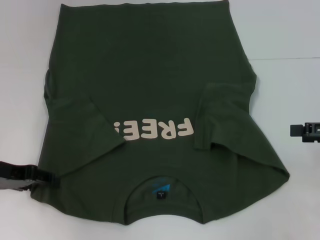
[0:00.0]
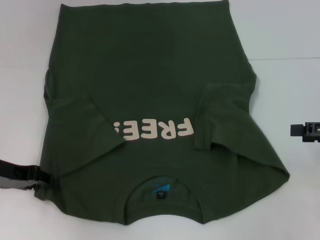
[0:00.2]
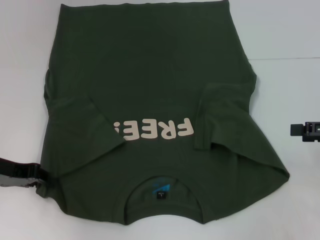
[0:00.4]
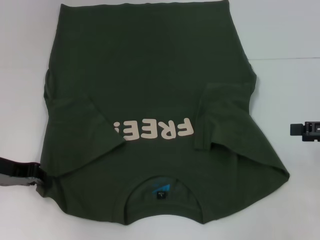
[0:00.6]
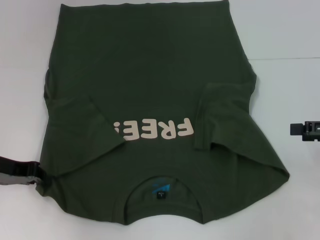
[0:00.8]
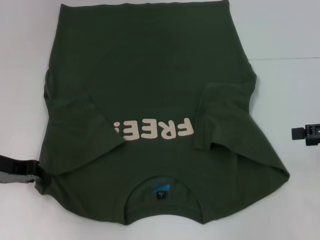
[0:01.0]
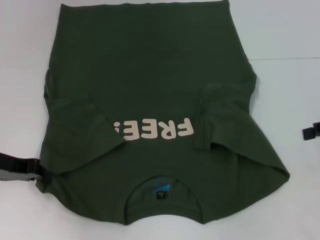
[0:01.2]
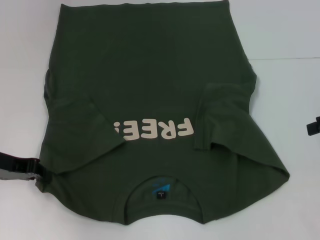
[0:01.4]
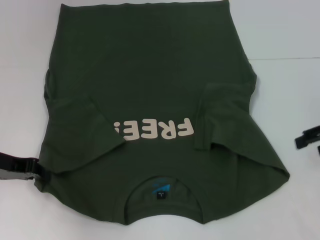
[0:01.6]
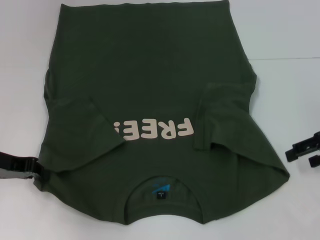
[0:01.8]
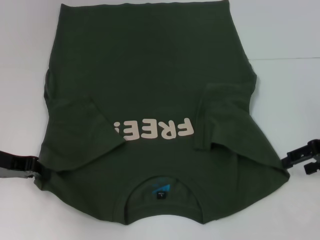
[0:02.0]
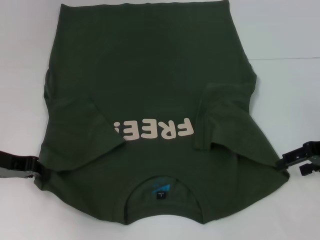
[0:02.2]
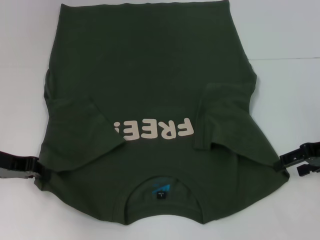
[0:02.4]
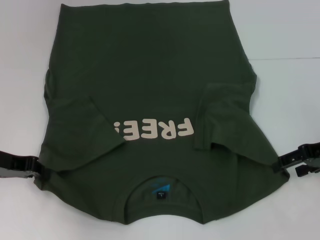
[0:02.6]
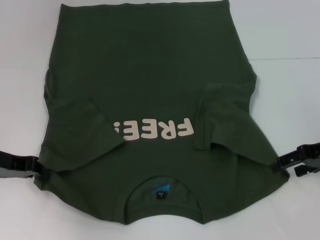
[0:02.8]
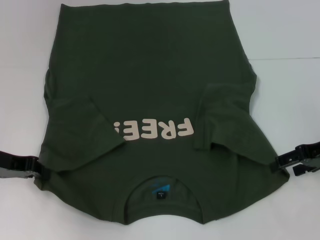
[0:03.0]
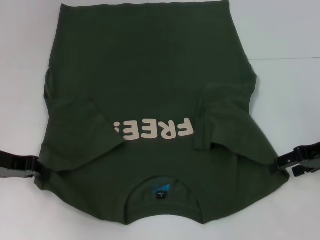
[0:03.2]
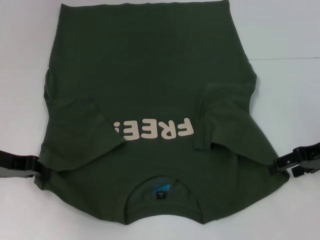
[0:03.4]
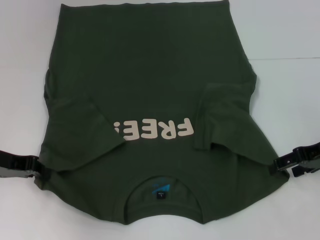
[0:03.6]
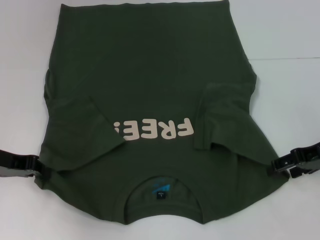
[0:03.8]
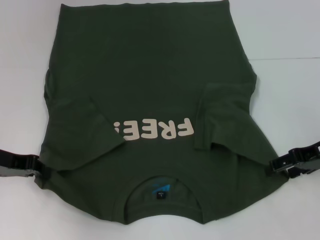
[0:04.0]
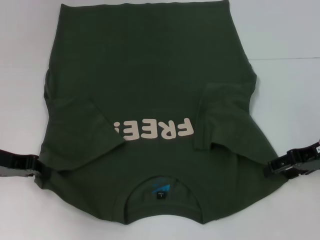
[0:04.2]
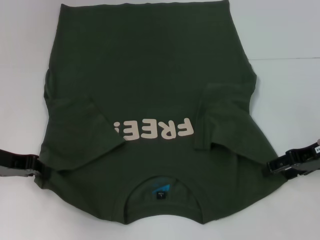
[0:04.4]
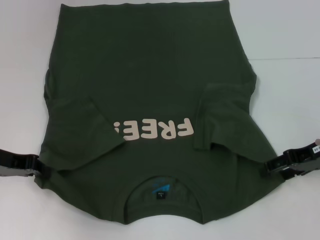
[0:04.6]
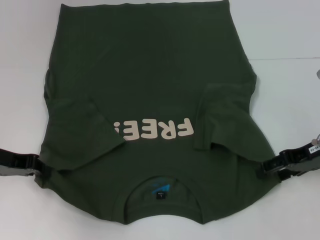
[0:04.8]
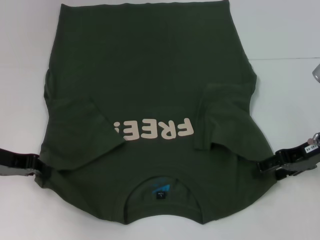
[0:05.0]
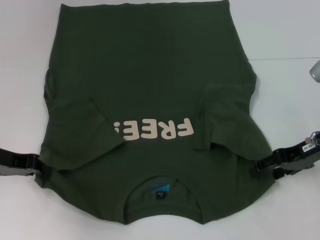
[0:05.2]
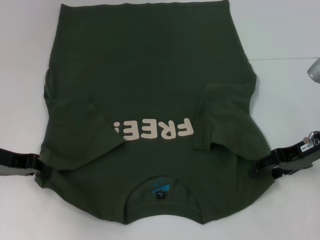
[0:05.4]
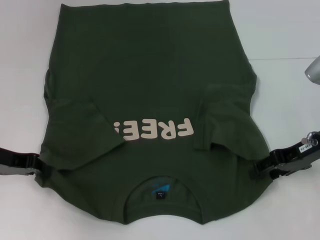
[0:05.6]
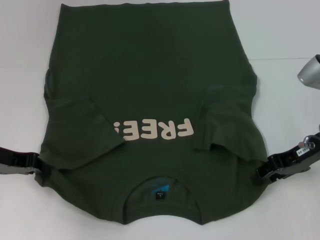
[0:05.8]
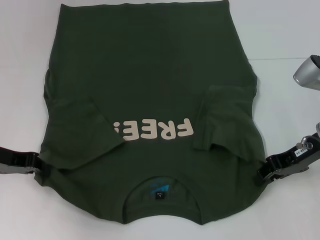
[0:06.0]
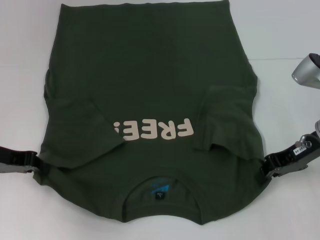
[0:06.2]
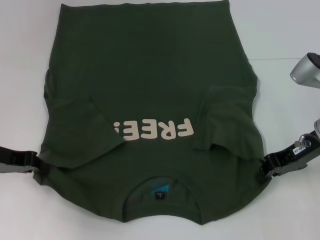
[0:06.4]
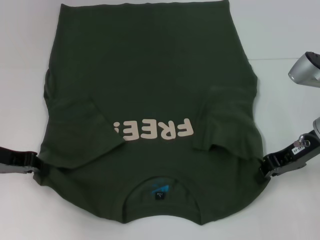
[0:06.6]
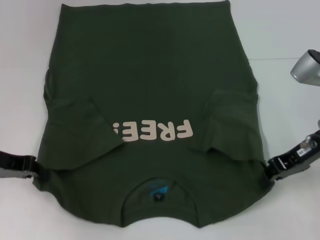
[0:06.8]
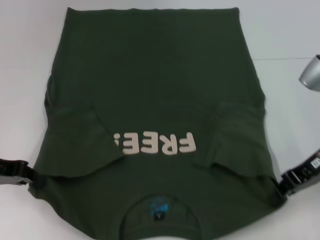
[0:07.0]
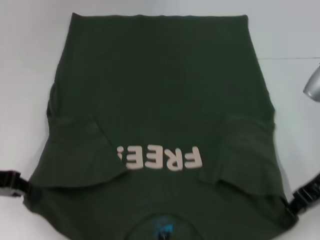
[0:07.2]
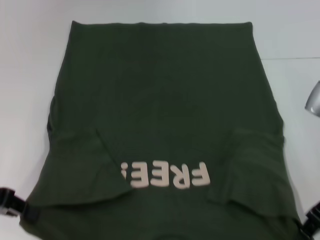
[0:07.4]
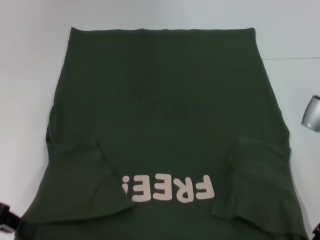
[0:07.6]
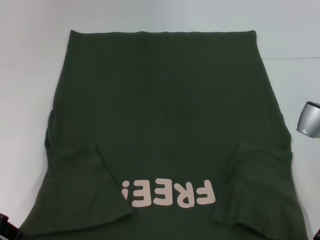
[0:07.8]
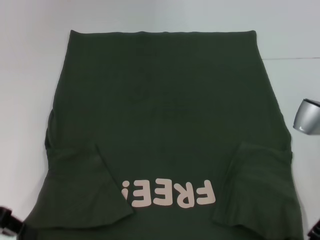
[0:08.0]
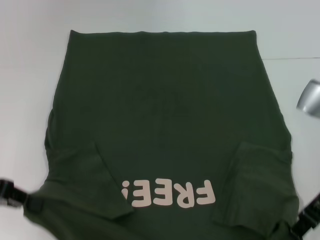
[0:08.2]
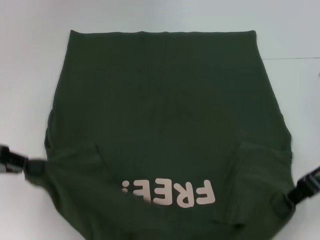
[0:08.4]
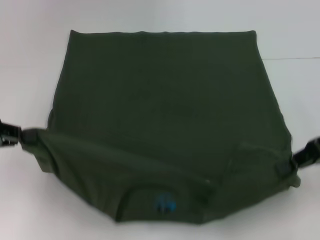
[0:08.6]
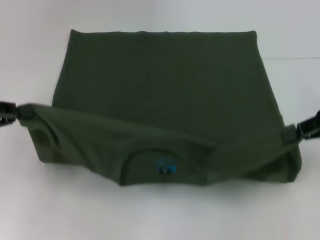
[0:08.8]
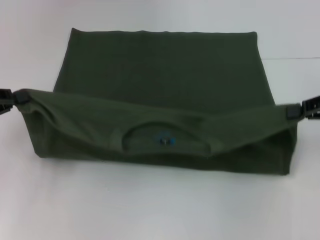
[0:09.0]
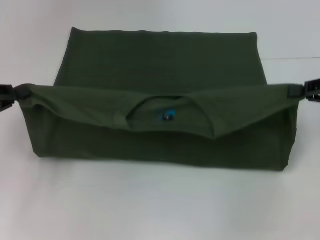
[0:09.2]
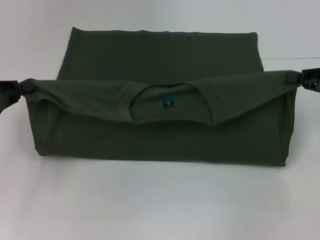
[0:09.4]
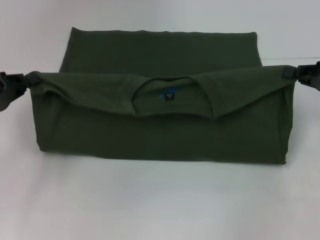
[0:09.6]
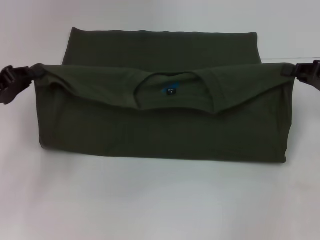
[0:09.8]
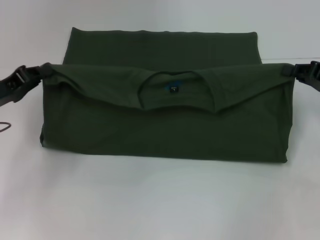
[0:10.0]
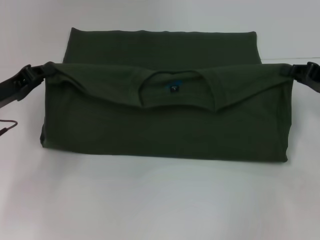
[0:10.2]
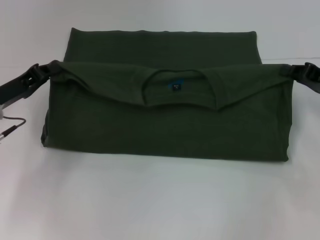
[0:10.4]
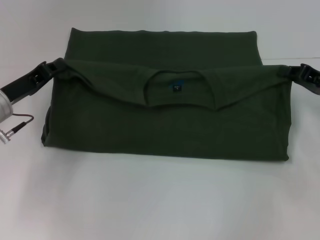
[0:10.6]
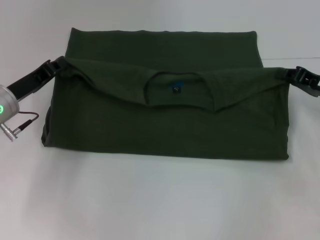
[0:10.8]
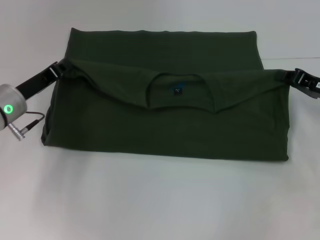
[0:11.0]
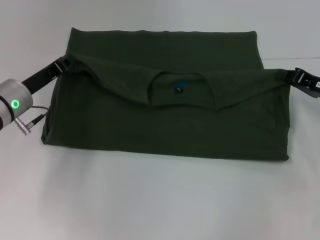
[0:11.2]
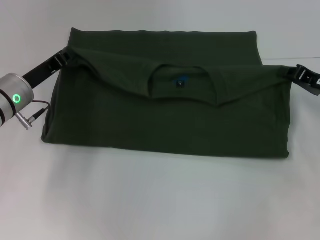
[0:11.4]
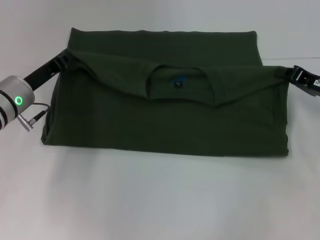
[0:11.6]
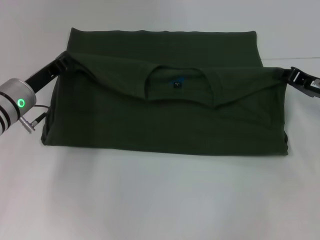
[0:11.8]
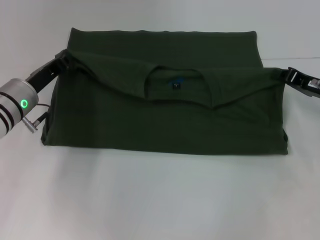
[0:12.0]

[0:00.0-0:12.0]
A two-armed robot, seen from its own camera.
Step, 0:00.8 to 0:05.8: Grab the bottom right corner with your right hand.
0:00.0 to 0:01.6: The left gripper closes; the right gripper changes place by roughly 5 cm.
0:01.6 to 0:03.0: The right gripper shifts by some 5 cm.
0:03.0 to 0:04.4: The grippers stay close to where they were, moving slightly.
0:04.4 to 0:06.0: The right gripper closes.
0:06.0 to 0:07.6: The left gripper travels backward by roughly 5 cm, while the right gripper moves about 5 cm, and closes its fingers.
0:07.6 to 0:09.0: The right gripper travels to the right by about 10 cm.
0:09.0 to 0:10.4: The right gripper moves downward, about 5 cm; the left gripper goes approximately 10 cm to the right, downward and forward.
0:10.4 to 0:12.0: The left gripper travels to the right by approximately 5 cm.

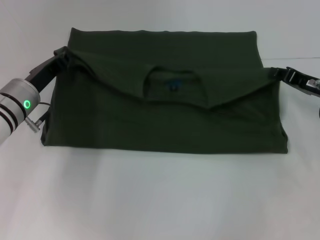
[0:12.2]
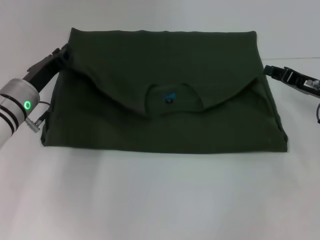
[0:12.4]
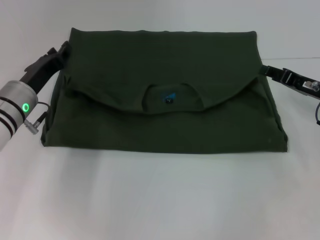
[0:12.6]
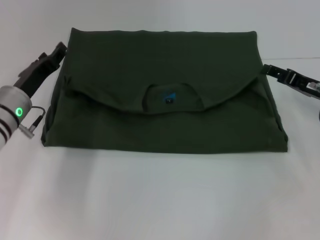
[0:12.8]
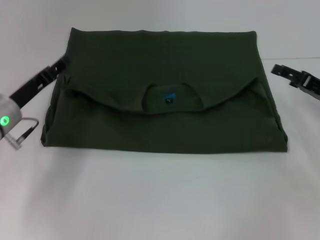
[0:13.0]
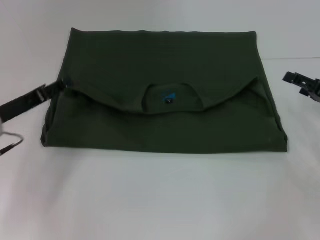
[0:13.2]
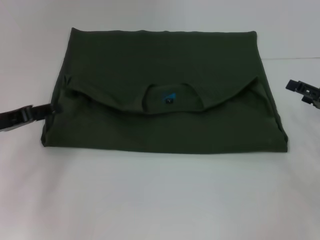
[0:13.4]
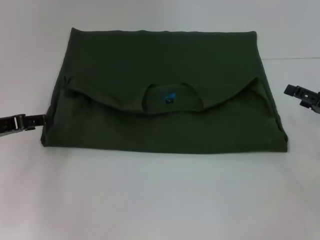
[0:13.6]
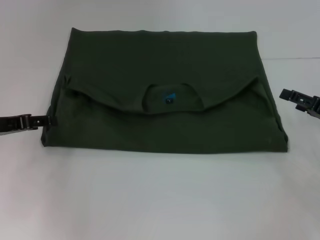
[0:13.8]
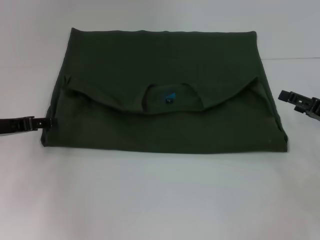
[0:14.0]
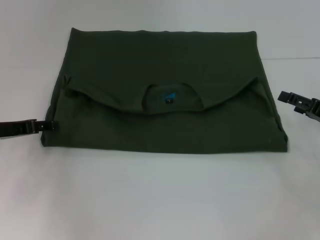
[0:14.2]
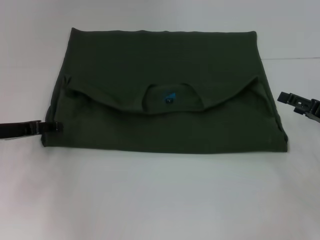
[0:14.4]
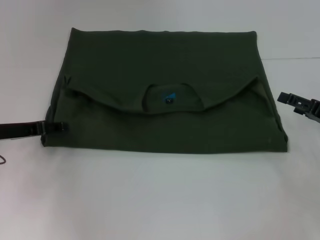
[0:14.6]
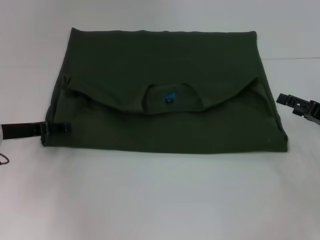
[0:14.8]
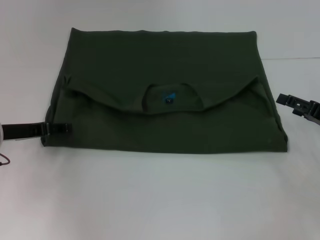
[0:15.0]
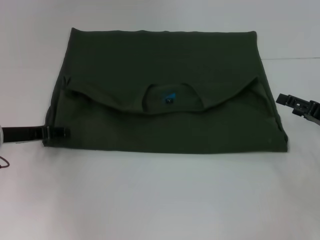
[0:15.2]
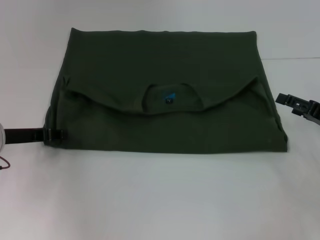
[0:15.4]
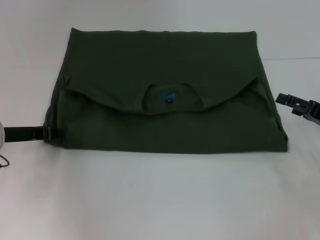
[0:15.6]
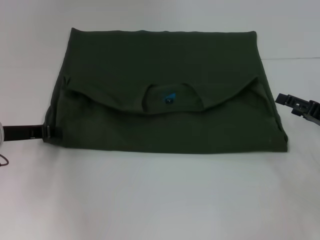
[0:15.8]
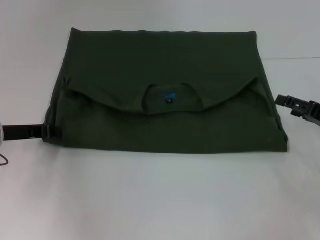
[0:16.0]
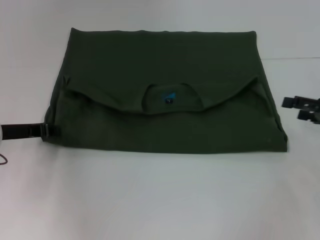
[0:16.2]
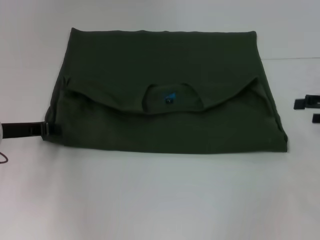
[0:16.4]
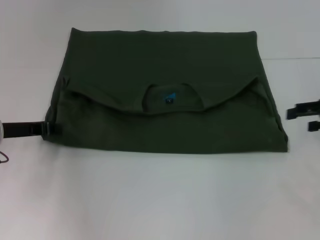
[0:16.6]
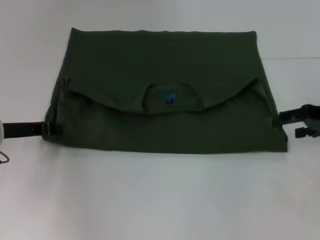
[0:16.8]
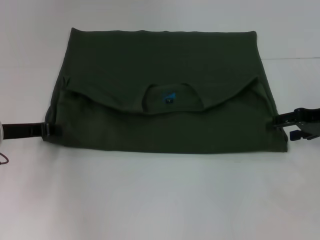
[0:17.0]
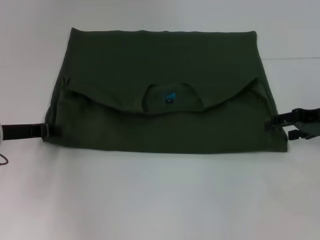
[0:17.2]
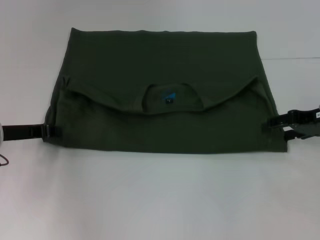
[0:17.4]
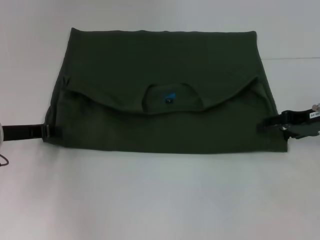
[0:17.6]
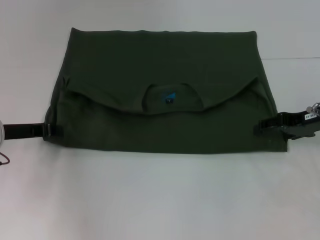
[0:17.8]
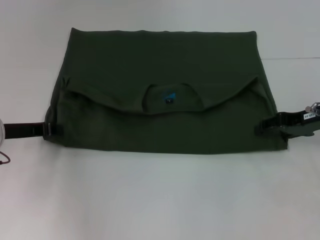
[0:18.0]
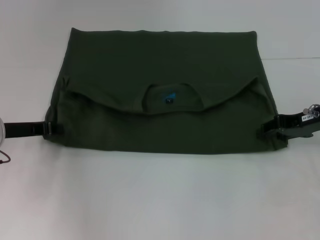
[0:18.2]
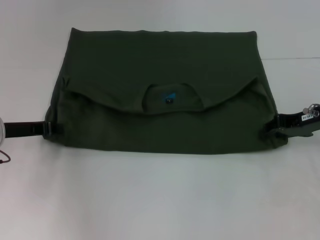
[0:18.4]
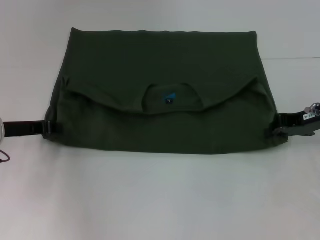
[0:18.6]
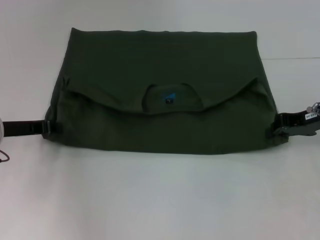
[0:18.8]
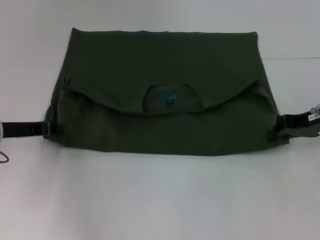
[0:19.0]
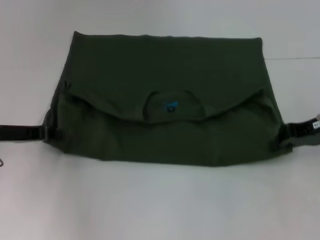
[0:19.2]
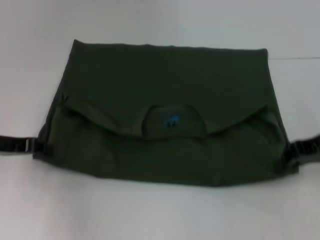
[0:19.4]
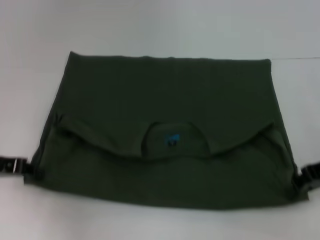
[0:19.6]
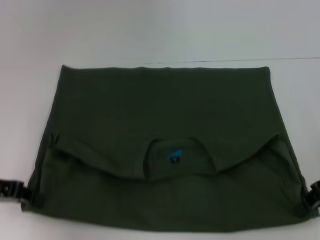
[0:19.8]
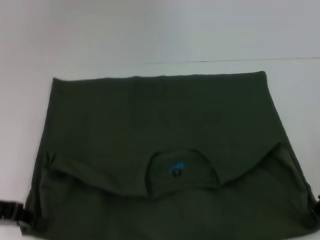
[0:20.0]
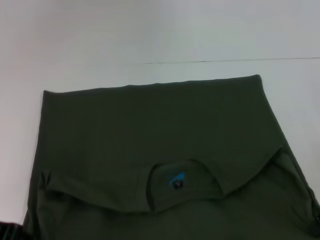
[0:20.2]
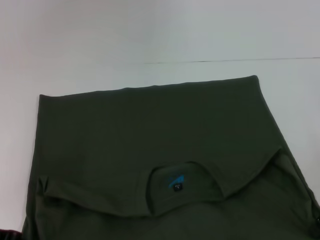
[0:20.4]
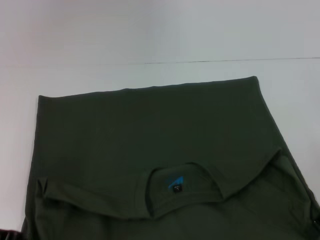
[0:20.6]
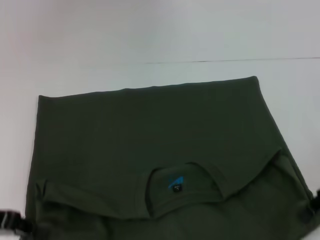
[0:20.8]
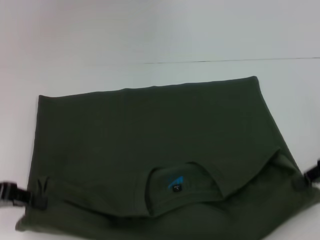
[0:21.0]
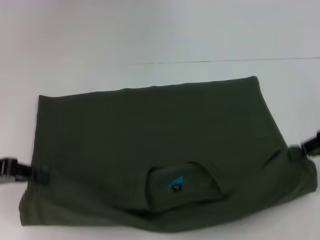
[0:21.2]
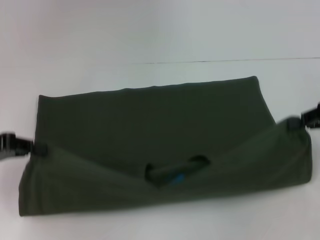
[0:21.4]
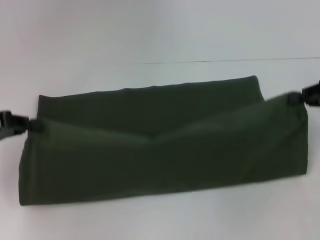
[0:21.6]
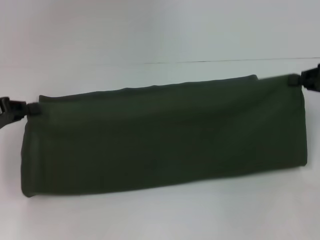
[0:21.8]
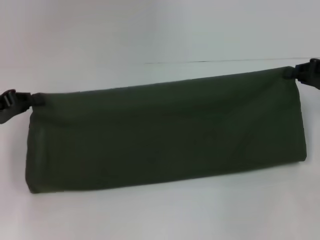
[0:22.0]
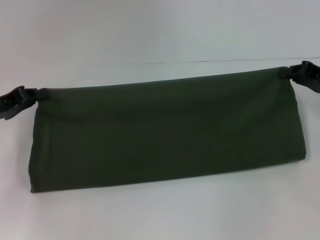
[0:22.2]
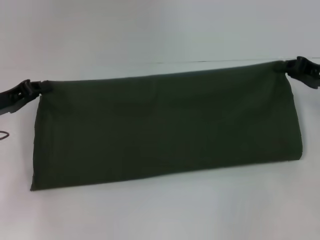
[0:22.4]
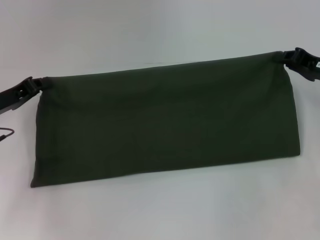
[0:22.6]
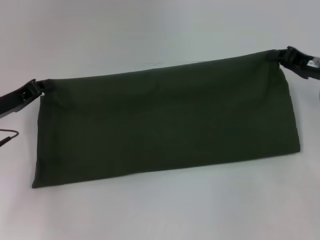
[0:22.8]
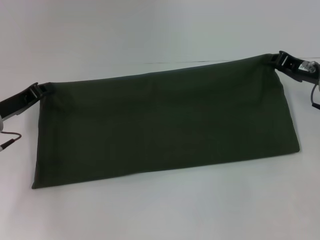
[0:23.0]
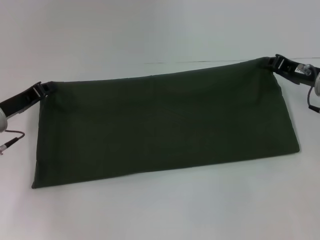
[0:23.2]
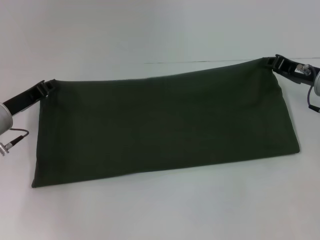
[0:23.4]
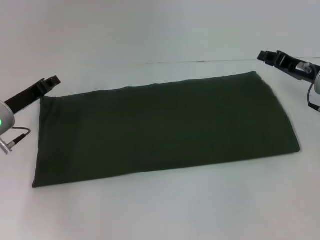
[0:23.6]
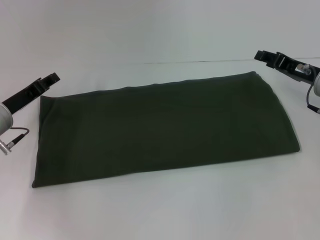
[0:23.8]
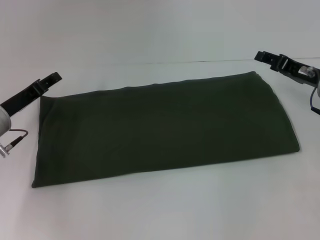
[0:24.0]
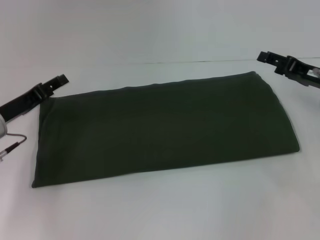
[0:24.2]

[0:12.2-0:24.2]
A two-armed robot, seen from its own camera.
Step, 0:13.2 to 0:20.4: Pull the clothes with your left hand.
Step, 0:13.2 to 0:20.4: Pull the clothes with your right hand.
Step, 0:20.6 to 0:23.6: Fold the clothes with your right hand.
0:12.2 to 0:13.8: The left gripper heads to the left, covering approximately 10 cm, and opens its fingers, while the right gripper is displaced backward by about 5 cm, and opens.
0:13.8 to 0:15.2: There are only small adjustments of the grippers.
0:15.2 to 0:16.6: The right gripper heads upward, covering about 10 cm. Meanwhile the left gripper closes its fingers.
0:16.6 to 0:18.2: The right gripper is displaced to the left by roughly 5 cm, and closes.
0:18.2 to 0:19.8: The two grippers go some 5 cm backward. The right gripper closes its fingers.
0:19.8 to 0:21.2: There are only small adjustments of the grippers.
0:21.2 to 0:22.6: The grippers both shift forward by some 5 cm.
0:22.6 to 0:24.2: The right gripper opens its fingers; the left gripper opens.
